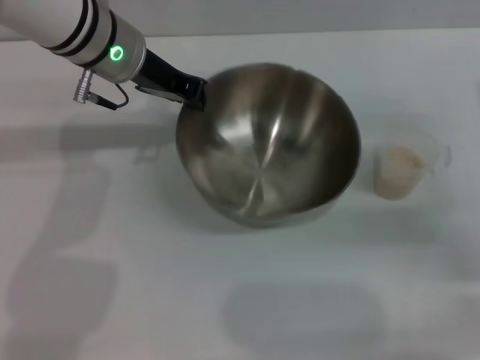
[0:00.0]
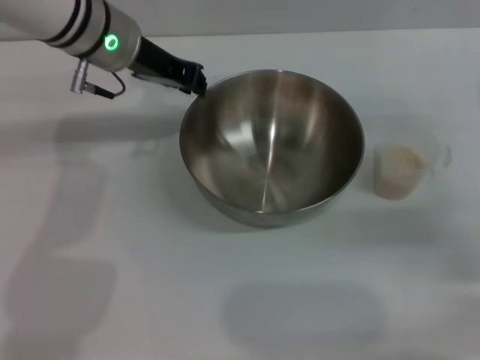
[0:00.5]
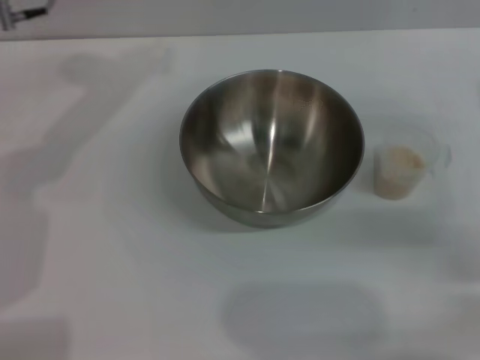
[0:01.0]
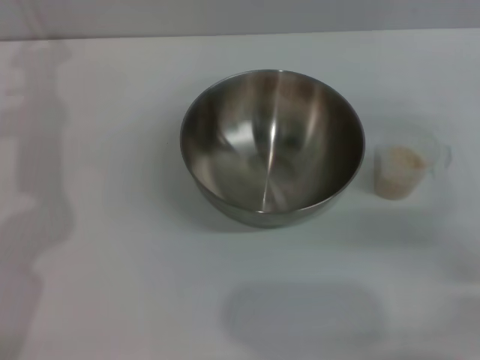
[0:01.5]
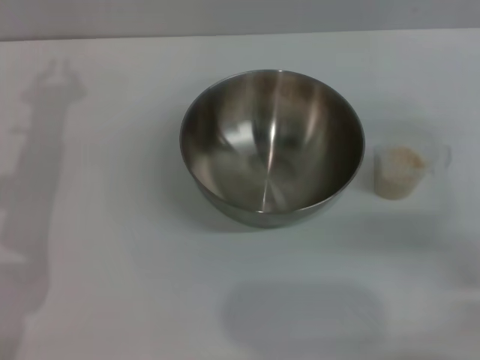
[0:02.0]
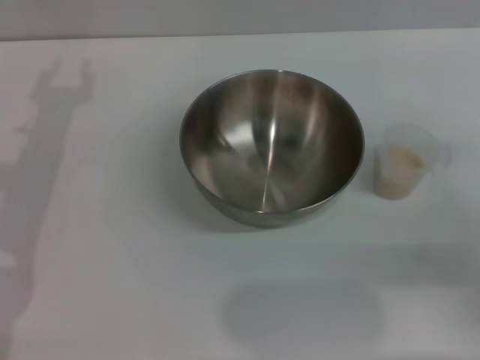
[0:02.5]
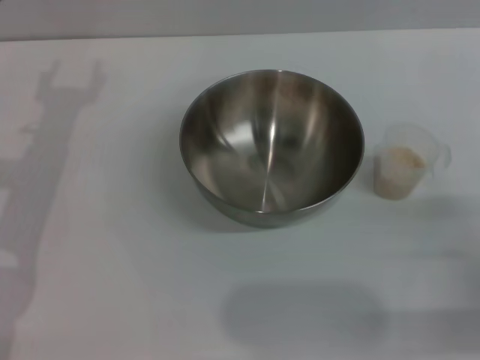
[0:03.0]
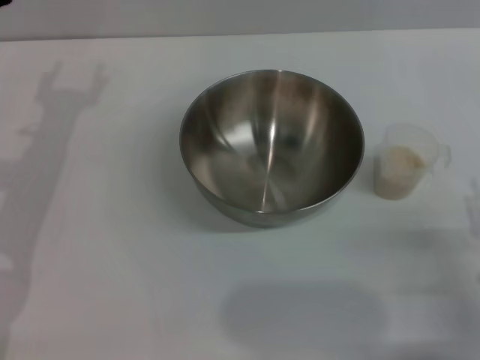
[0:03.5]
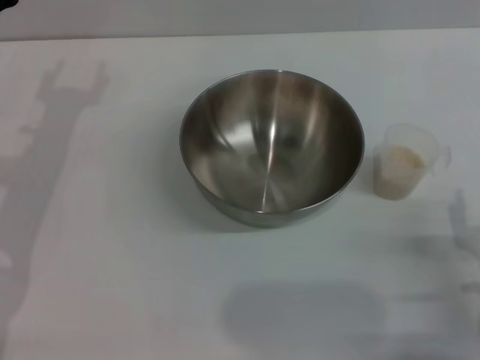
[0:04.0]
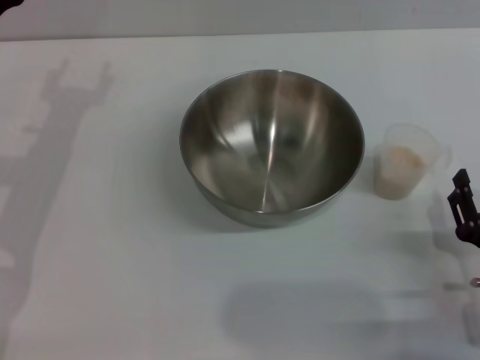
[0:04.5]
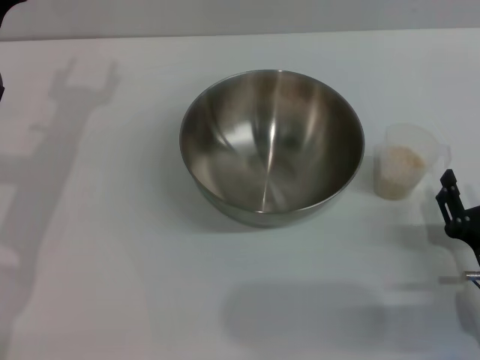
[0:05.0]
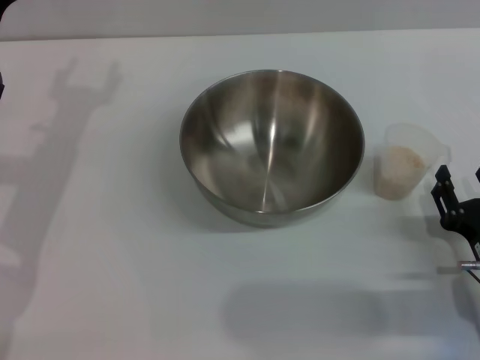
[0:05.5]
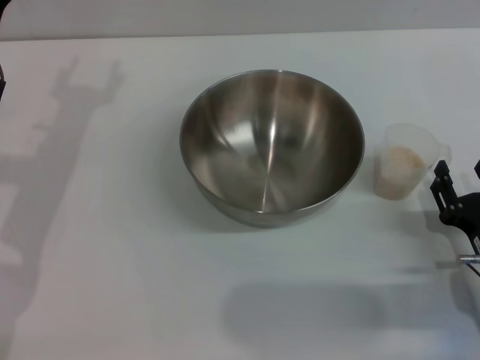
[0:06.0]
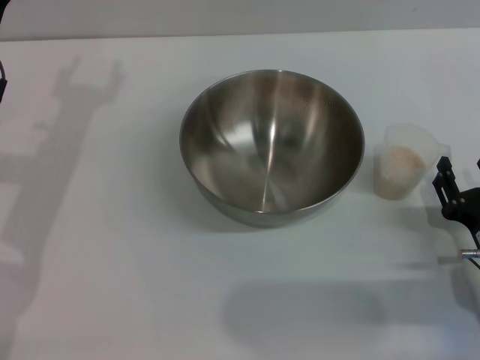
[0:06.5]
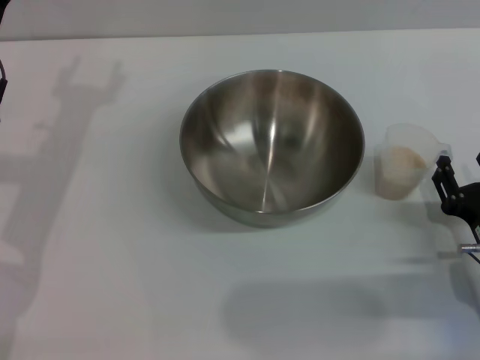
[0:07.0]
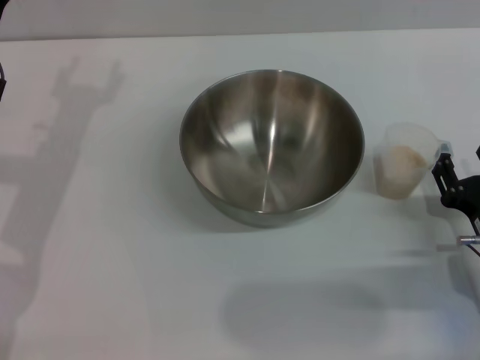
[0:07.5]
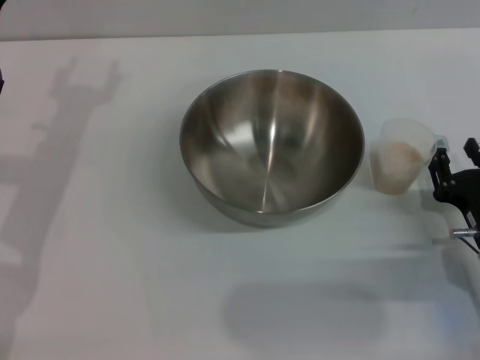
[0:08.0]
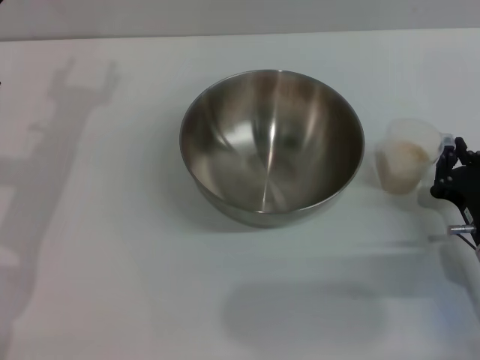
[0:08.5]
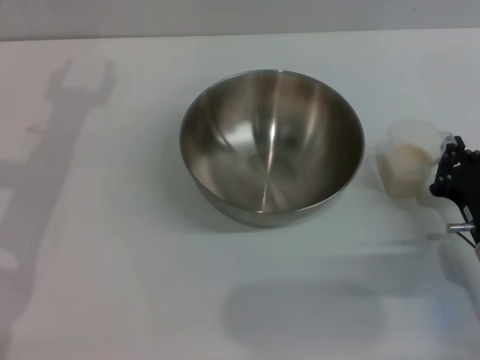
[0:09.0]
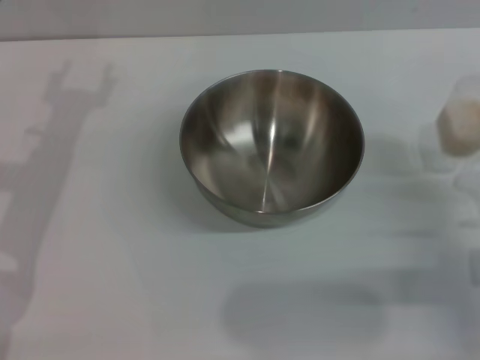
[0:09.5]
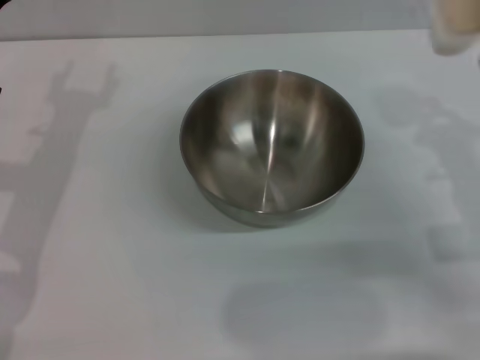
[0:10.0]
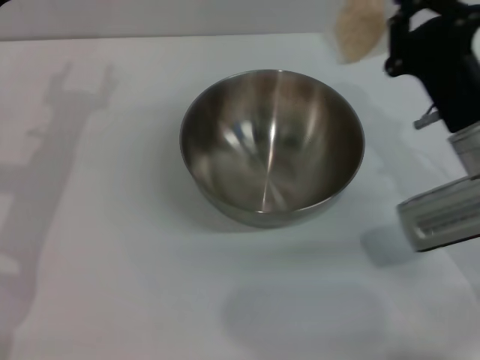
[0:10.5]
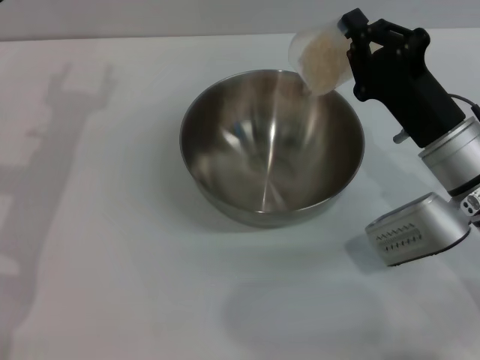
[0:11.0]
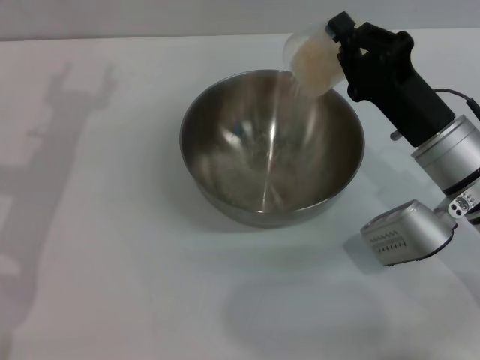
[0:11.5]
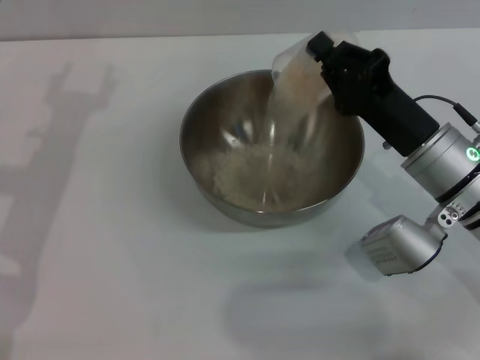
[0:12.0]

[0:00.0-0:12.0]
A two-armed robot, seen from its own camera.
Task of the whole recording: Place the bowl in the middle of the table with one hand and pour the rice from the grain cup into it with the other hand.
Step, 0:01.0 to 0:09.5: Pick up the cup with rice in it with the right gripper.
0:00.0 to 0:02.0: The left gripper shifts about 15 cm to the left and backward.
0:02.0 to 0:04.0: The right gripper heads backward, downward and to the left, covering roughly 20 cm.
0:04.0 to 0:06.0: The grippers move only a little.
0:06.0 to 0:08.0: The grippers make only small movements.
0:08.0 to 0:10.0: The right gripper goes roughly 10 cm upward and forward, and closes.
0:10.0 to 0:12.0: The right gripper goes roughly 5 cm to the left.

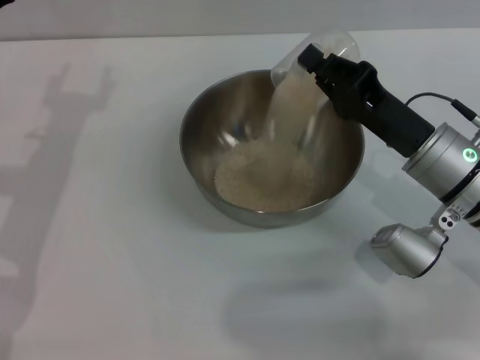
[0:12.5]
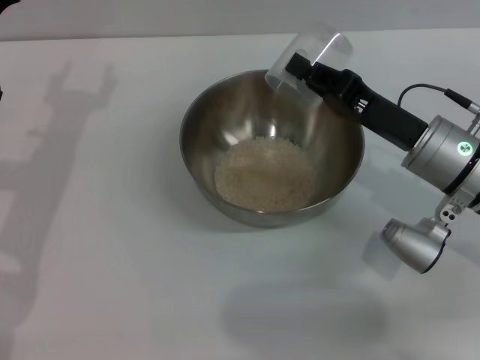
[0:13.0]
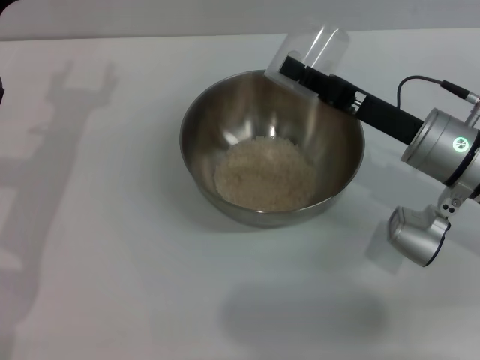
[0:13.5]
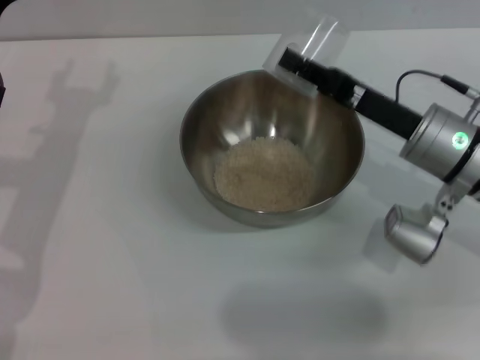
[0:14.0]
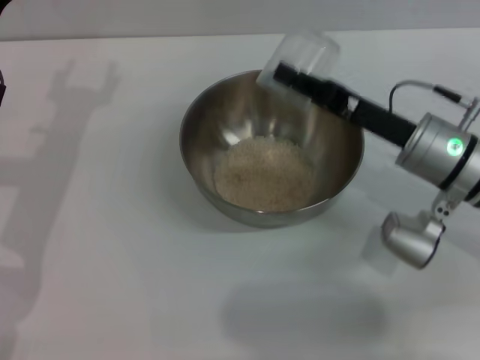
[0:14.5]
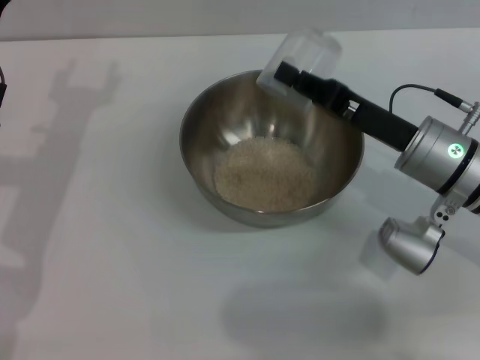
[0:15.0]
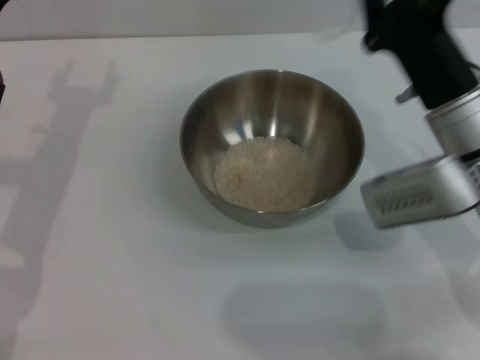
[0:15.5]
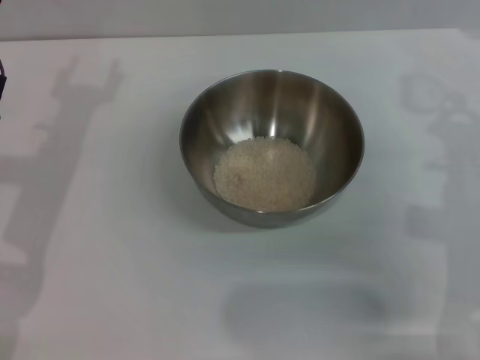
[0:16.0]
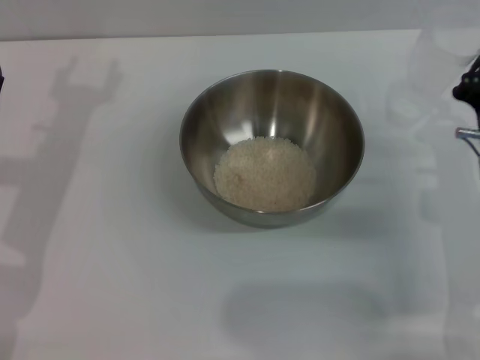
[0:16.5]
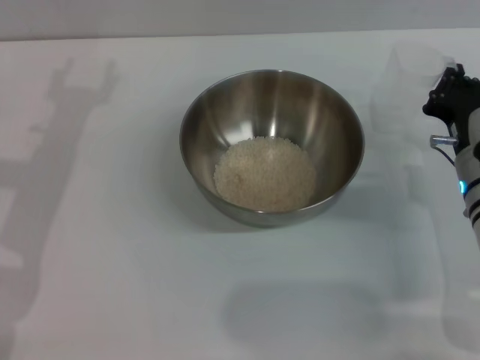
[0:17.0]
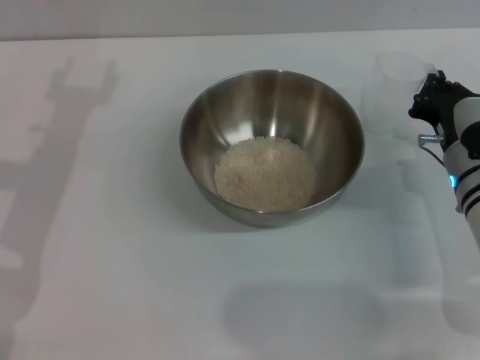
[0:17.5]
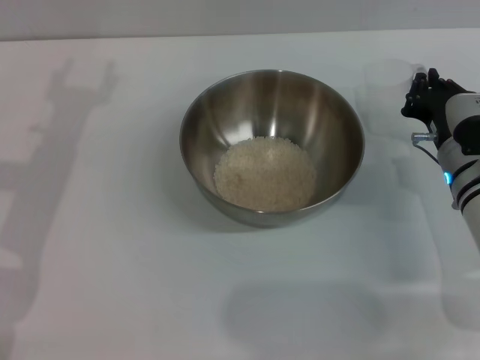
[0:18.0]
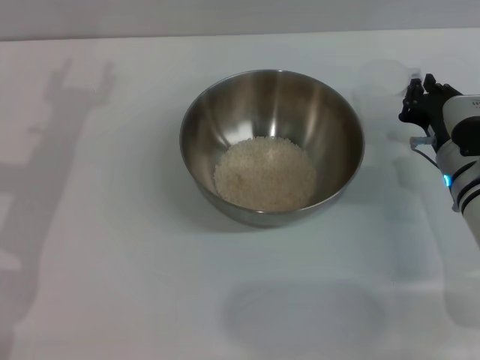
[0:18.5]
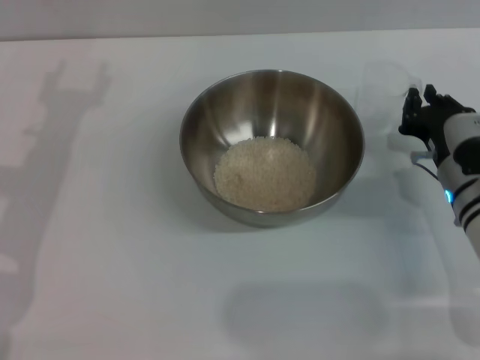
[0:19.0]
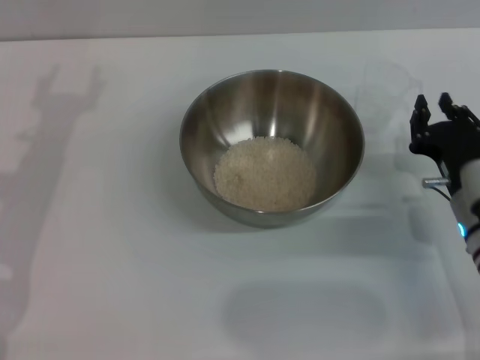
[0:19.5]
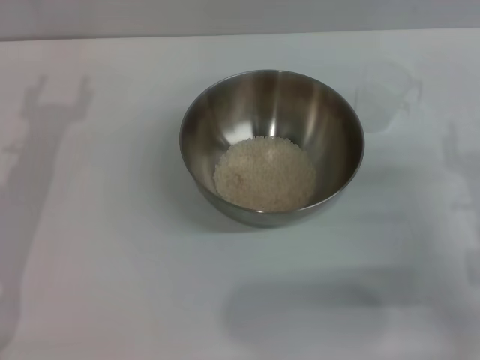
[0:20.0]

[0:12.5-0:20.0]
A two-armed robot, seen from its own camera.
Task of the whole recording: Place the bowl in the middle of the table with one hand and pour the rice from the grain cup into it with the other hand.
Step, 0:13.0 to 0:19.0: Place the cup on the table with the right gripper.
0:14.5 to 0:16.5: The right gripper shifts by approximately 5 cm.
0:16.5 to 0:18.0: The grippers move only a little.
0:18.0 to 0:20.0: The right gripper shifts approximately 10 cm backward, and opens its fingers.
